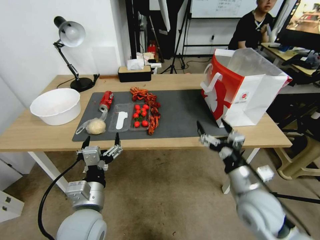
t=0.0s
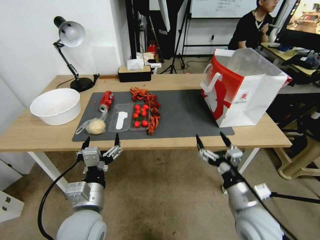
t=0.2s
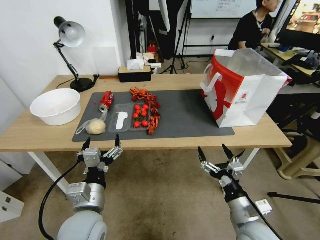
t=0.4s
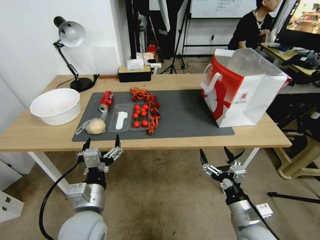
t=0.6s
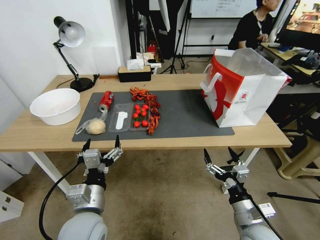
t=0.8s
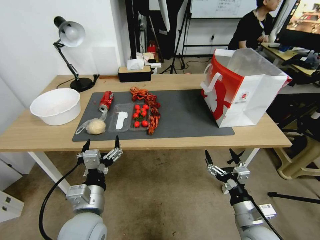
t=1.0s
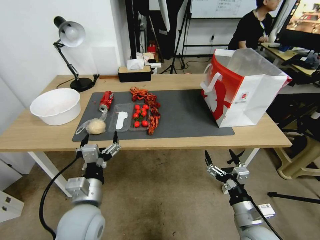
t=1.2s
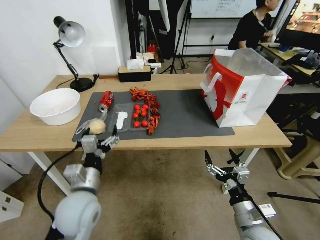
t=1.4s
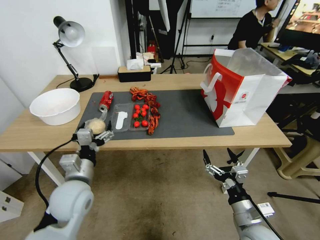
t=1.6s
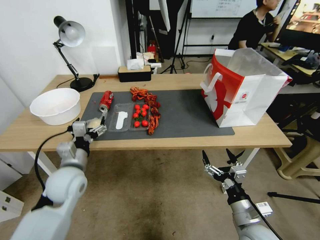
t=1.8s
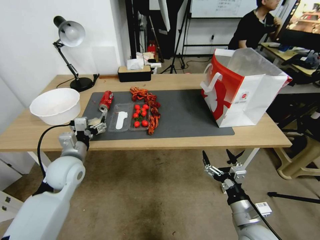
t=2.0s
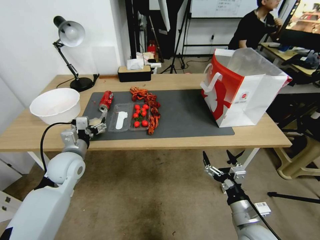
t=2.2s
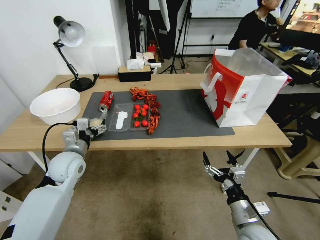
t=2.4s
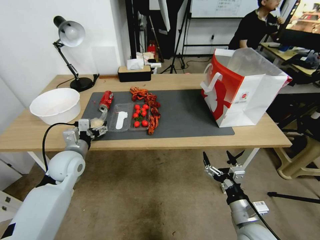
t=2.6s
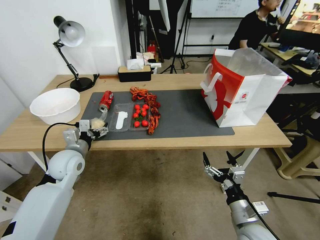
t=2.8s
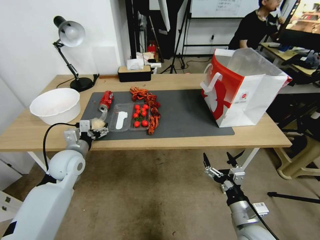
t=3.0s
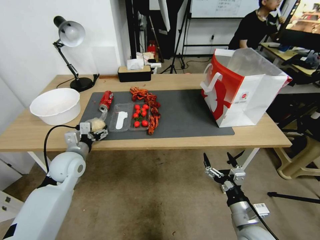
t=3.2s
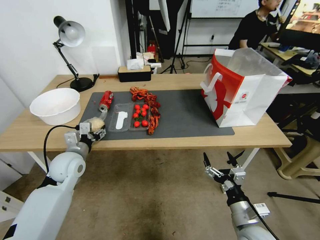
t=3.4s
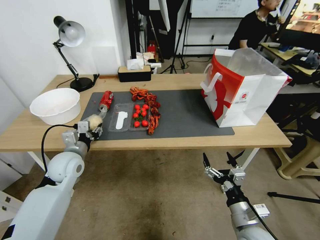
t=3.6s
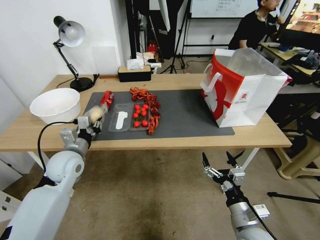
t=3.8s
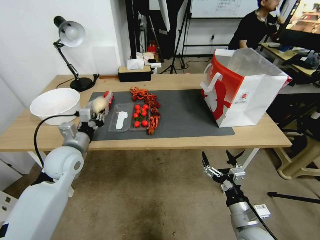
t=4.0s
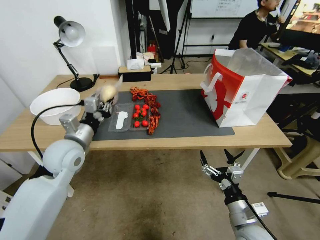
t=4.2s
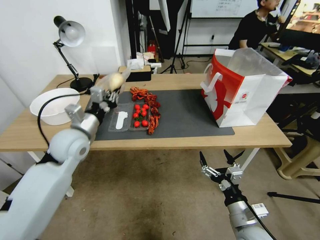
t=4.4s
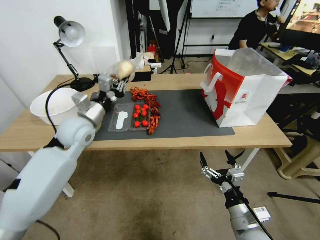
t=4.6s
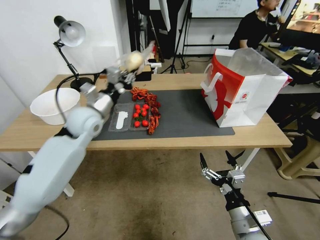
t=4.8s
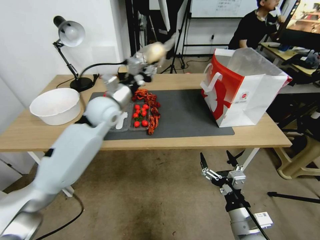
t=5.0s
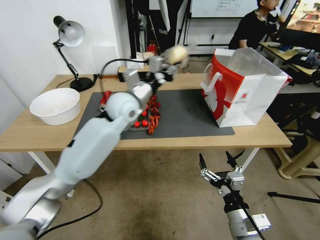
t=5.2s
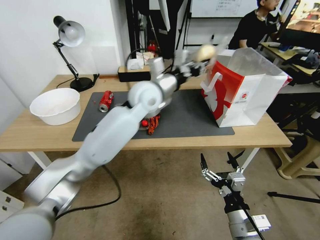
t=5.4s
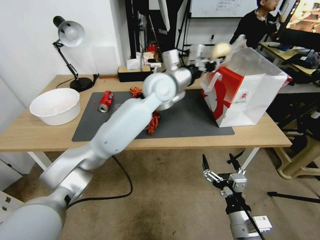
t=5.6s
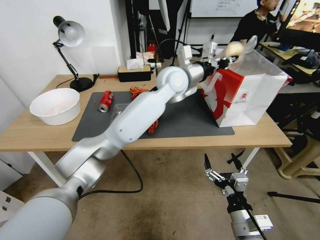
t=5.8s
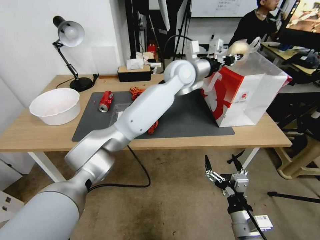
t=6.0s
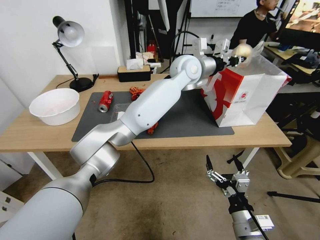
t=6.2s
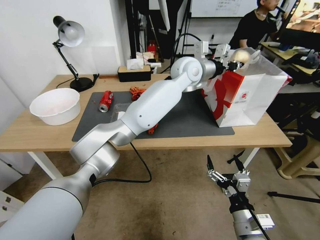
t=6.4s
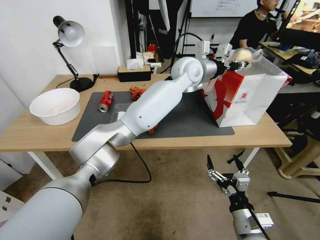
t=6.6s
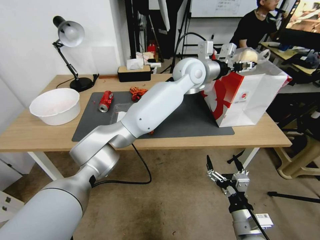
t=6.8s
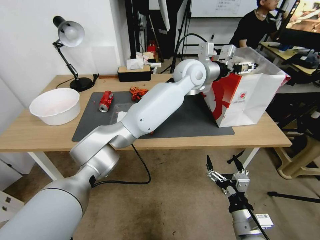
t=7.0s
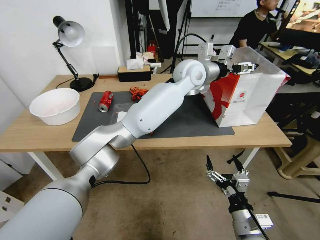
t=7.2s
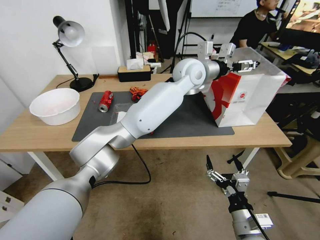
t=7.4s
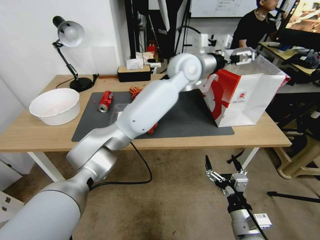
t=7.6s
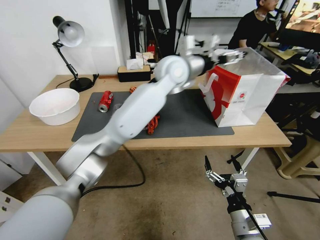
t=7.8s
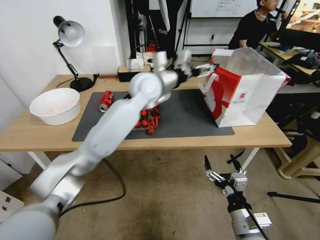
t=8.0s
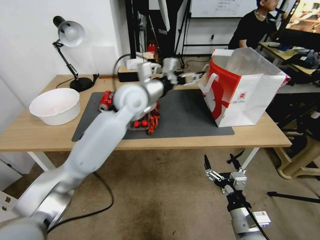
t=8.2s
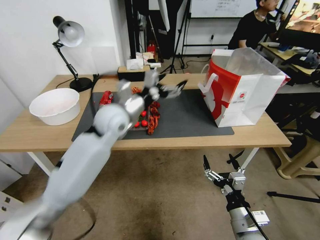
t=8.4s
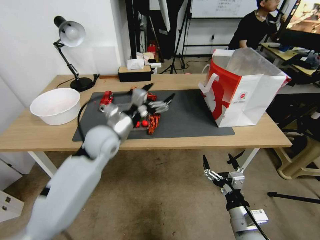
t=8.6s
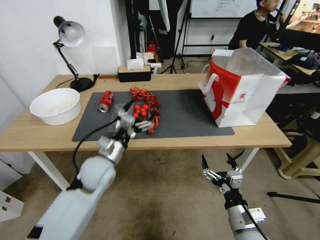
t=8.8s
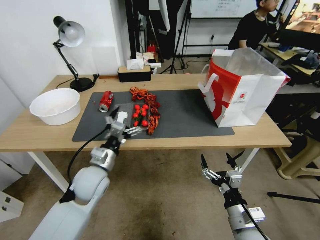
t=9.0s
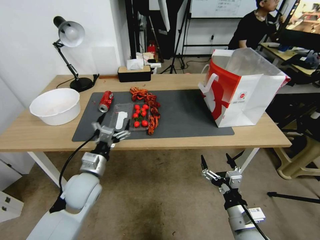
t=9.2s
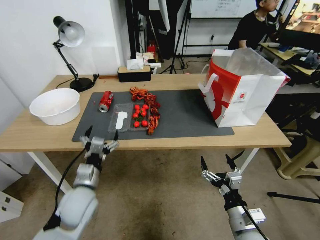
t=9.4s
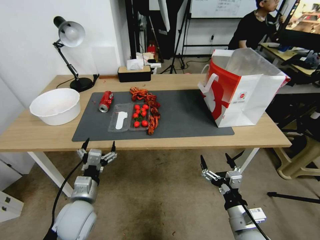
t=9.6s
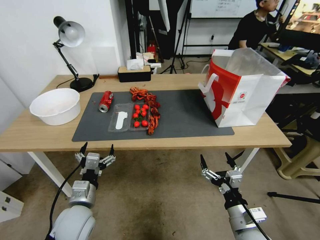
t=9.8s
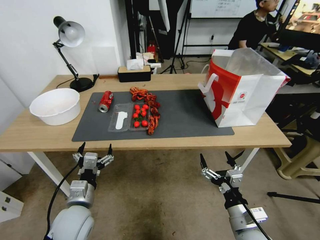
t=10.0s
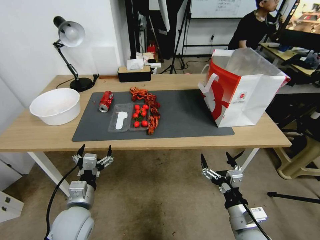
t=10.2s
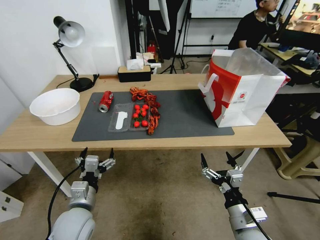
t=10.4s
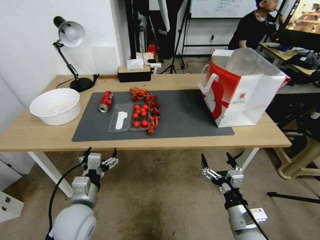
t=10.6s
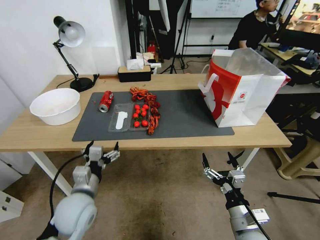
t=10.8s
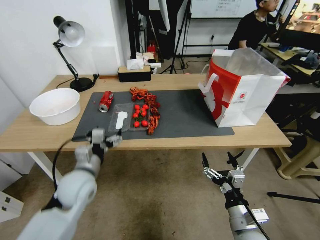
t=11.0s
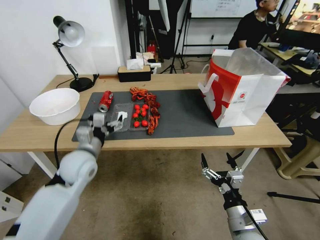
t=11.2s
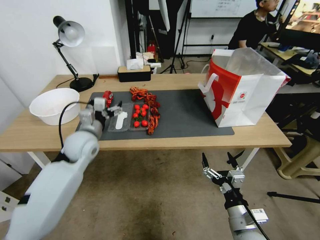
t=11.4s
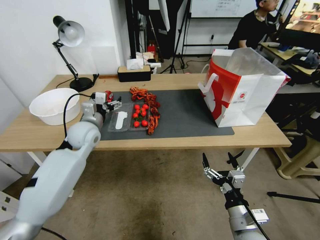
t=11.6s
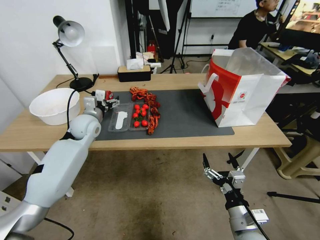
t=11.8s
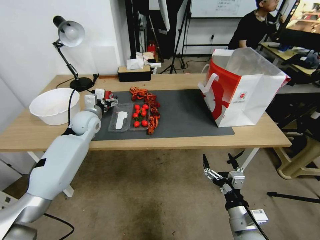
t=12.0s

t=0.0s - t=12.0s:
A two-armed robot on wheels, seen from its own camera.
t=0.0s - t=1.6s: The left gripper shifts about 10 cm forward and to the left. Meanwhile the right gripper moves downward and backward, approximately 10 cm.
t=1.6s - t=3.0s: The left gripper moves forward and to the left, some 10 cm.
t=3.0s - t=4.4s: The left gripper heads upward, covering some 10 cm, and closes.
t=4.4s - t=6.0s: The left gripper shifts roughly 35 cm to the right and forward.
t=6.0s - t=7.6s: The left gripper opens up.
t=7.6s - t=9.0s: The left gripper travels to the left, downward and backward by approximately 40 cm.
t=9.0s - t=10.4s: The left gripper heads backward, covering some 10 cm.
t=10.4s - t=12.0s: The left gripper travels forward by roughly 30 cm.

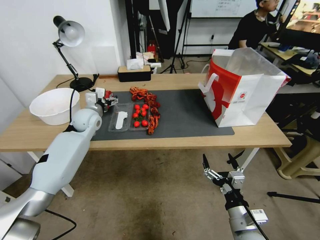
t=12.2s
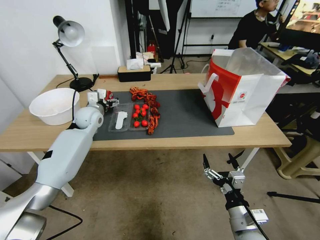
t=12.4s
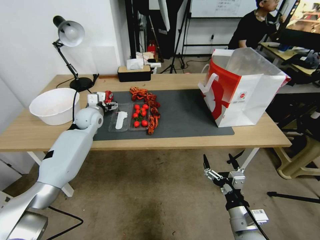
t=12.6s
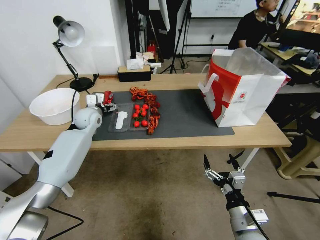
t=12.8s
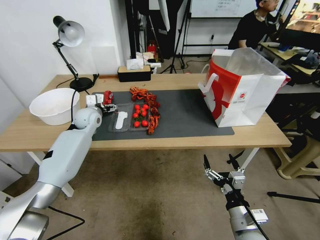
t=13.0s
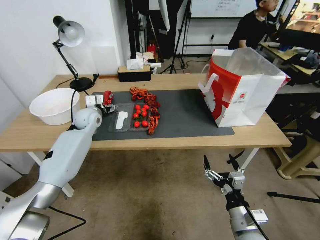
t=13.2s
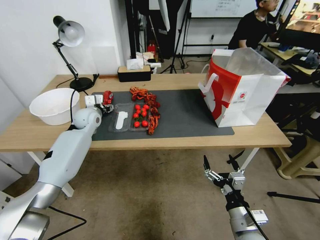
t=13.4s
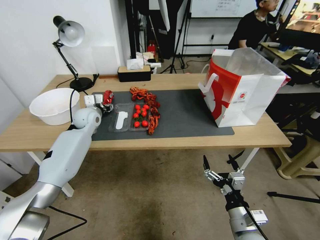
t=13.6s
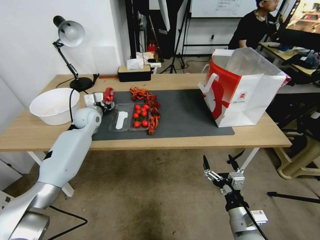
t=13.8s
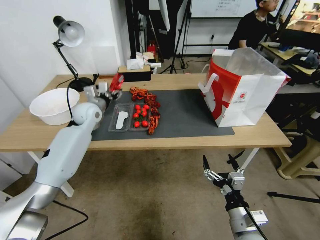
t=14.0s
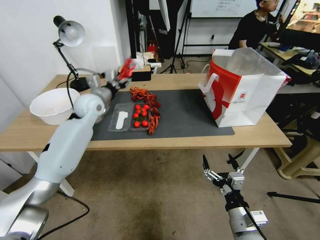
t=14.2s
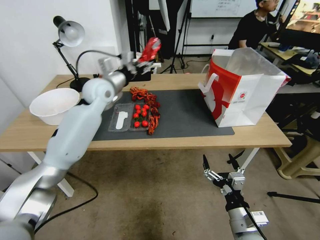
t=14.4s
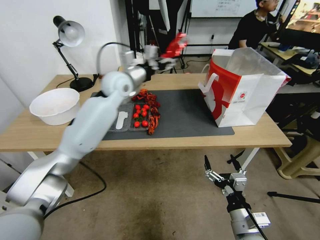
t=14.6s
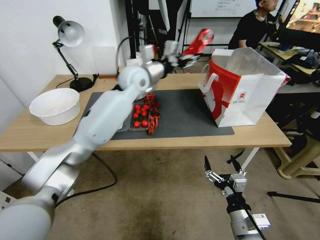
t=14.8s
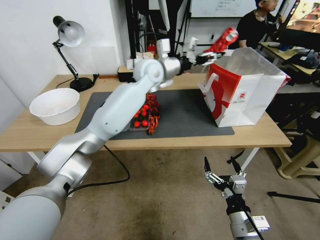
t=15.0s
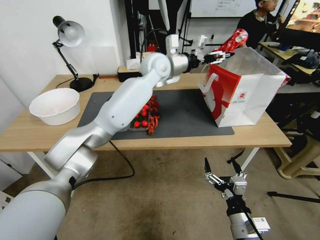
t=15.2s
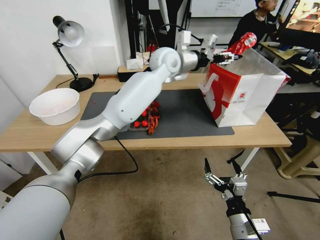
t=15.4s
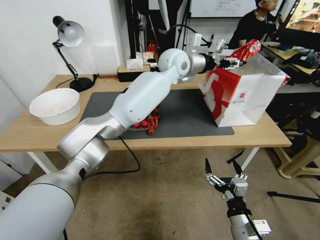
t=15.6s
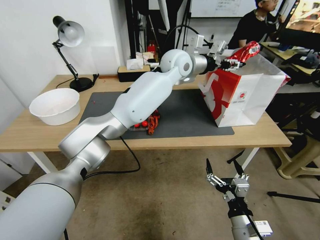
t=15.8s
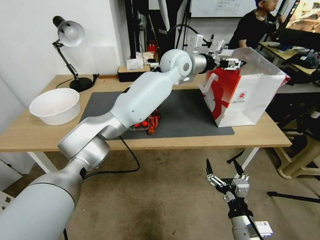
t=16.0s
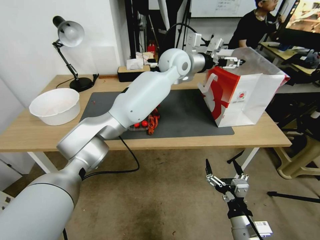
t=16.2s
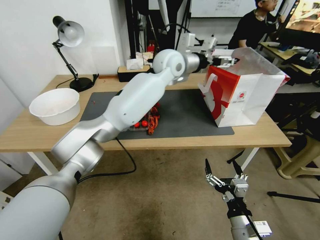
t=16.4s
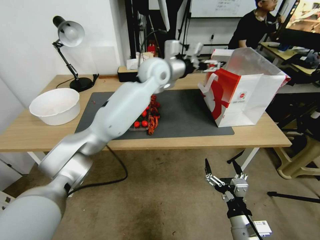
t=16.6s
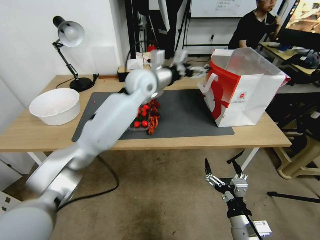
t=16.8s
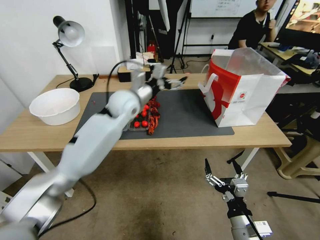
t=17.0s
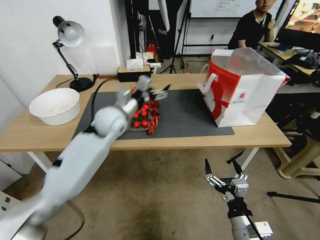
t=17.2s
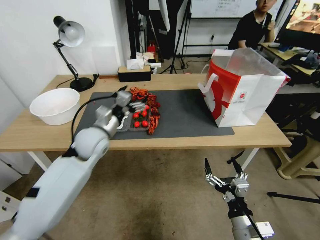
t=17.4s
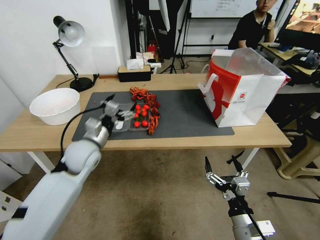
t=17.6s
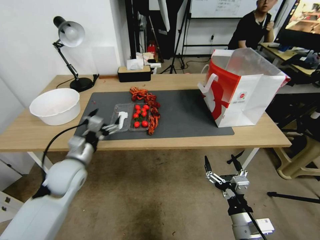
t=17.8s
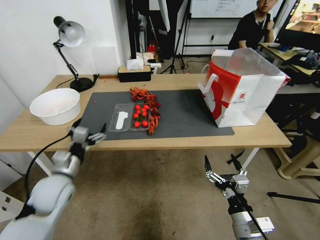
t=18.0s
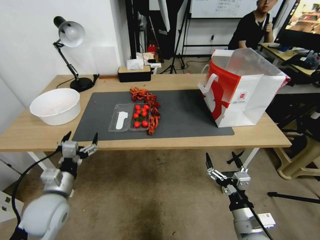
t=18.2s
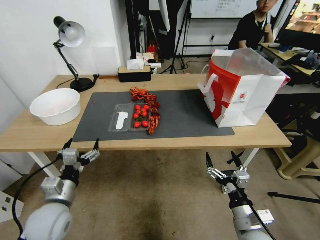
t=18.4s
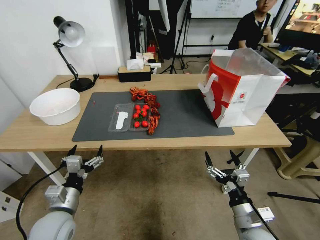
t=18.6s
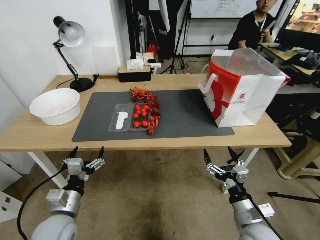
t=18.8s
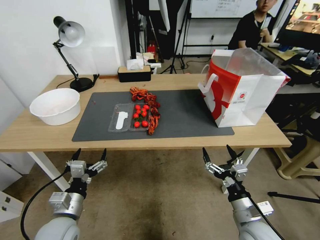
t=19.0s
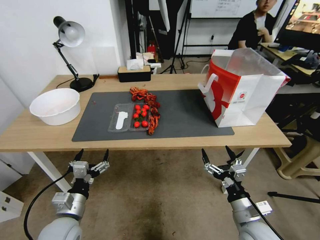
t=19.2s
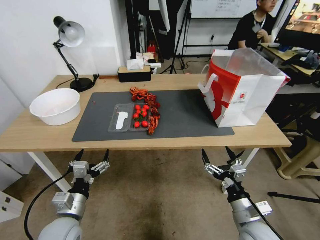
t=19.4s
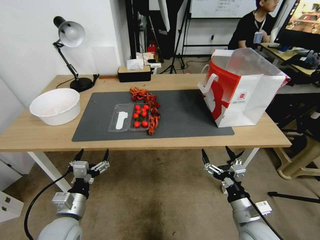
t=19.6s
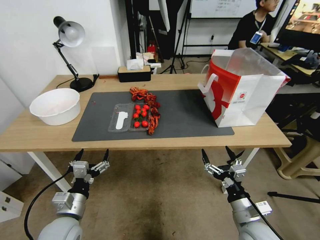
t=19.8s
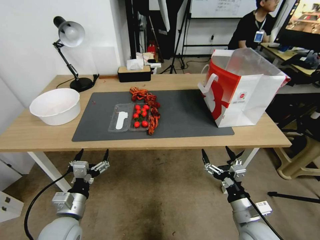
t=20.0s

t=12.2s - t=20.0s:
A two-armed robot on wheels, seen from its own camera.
t=12.2s - t=13.8s: The left gripper closes up.
t=13.8s - t=15.4s: The left gripper shifts some 40 cm to the right and upward.
t=15.4s - t=16.8s: The left gripper moves to the left and downward, some 10 cm, and opens its fingers.
t=16.8s - t=18.4s: The left gripper shifts roughly 50 cm backward, downward and to the left.
t=18.4s - t=20.0s: There are only small adjustments of the grippers.
